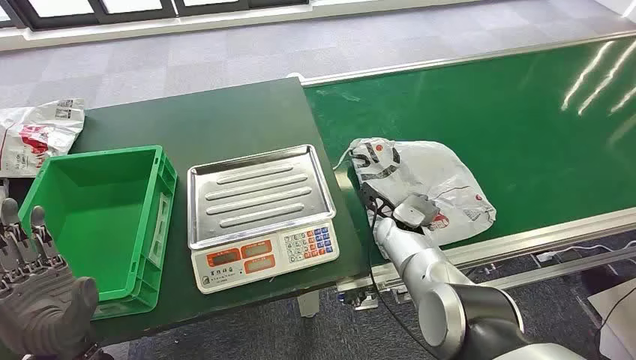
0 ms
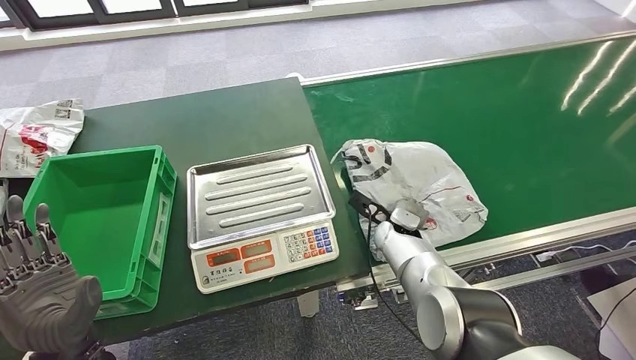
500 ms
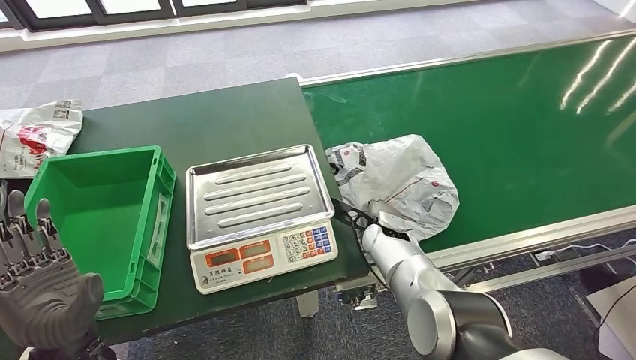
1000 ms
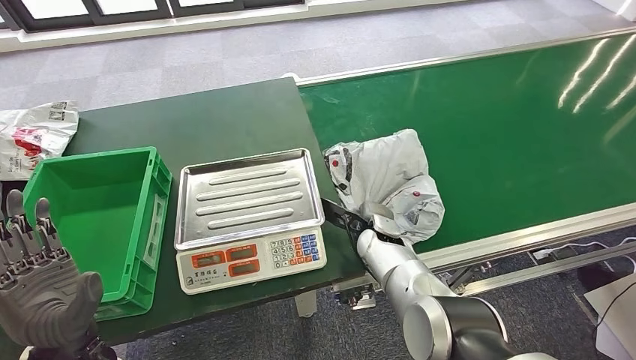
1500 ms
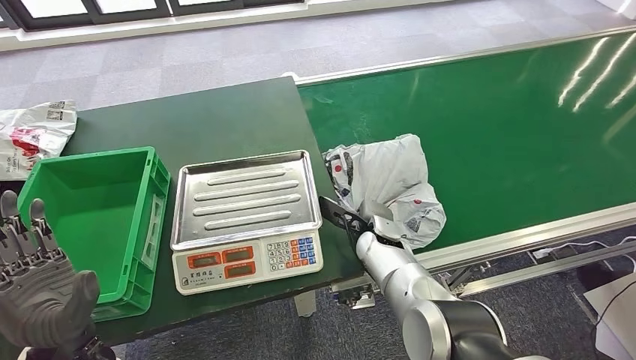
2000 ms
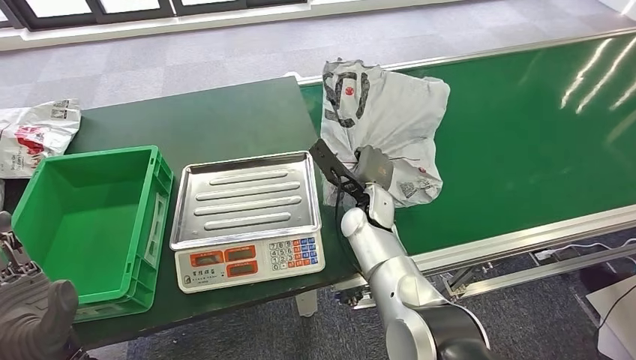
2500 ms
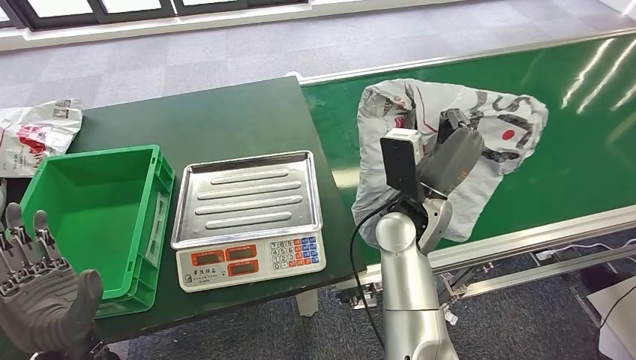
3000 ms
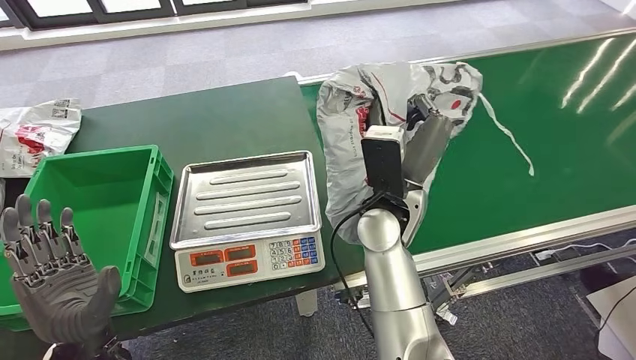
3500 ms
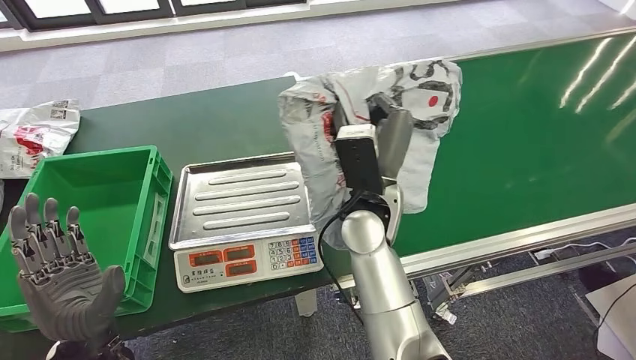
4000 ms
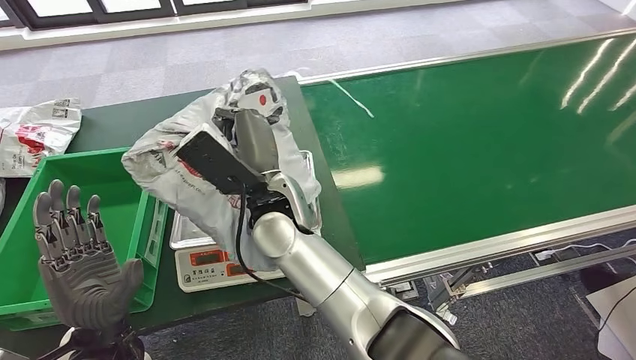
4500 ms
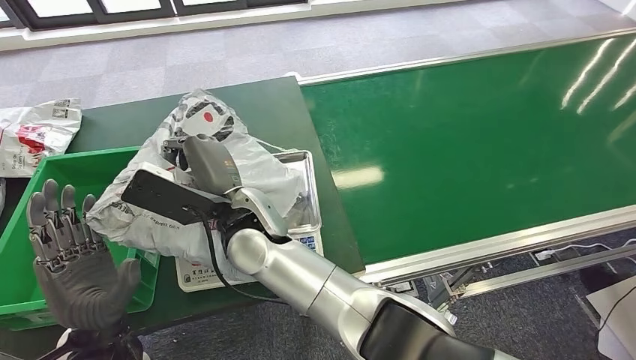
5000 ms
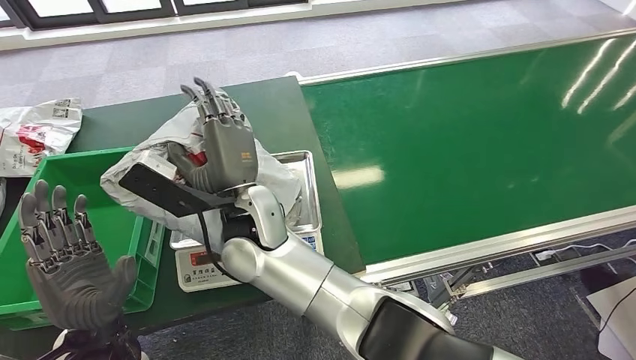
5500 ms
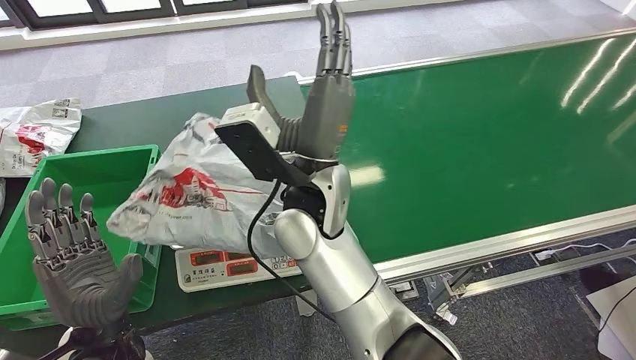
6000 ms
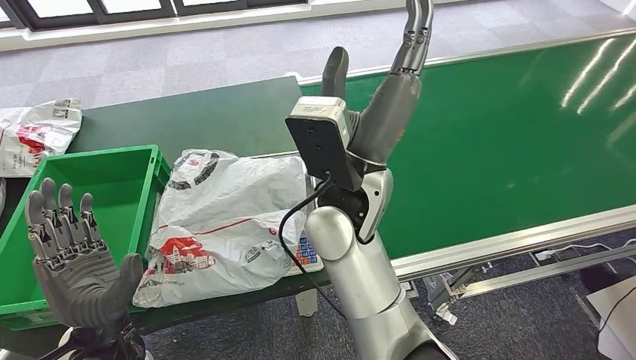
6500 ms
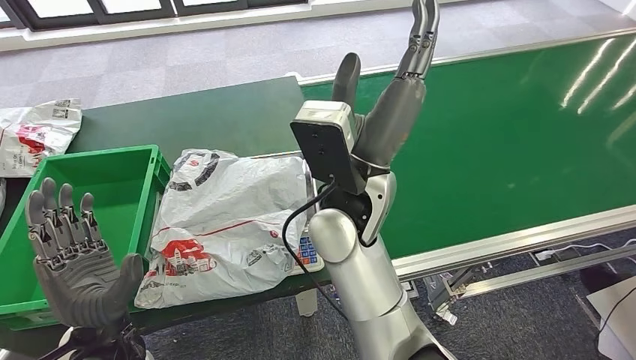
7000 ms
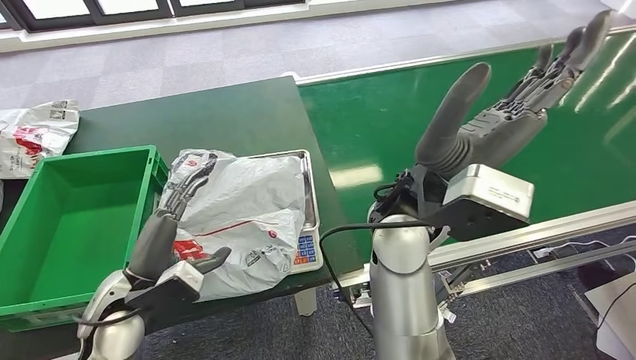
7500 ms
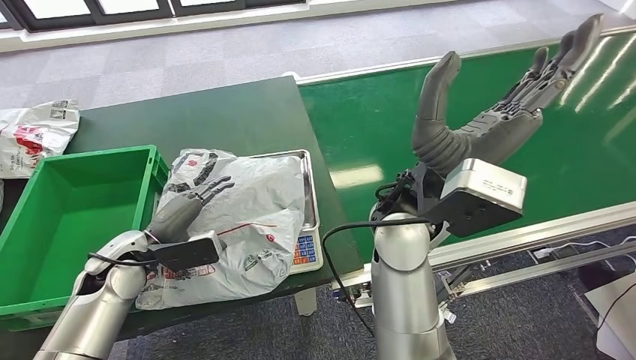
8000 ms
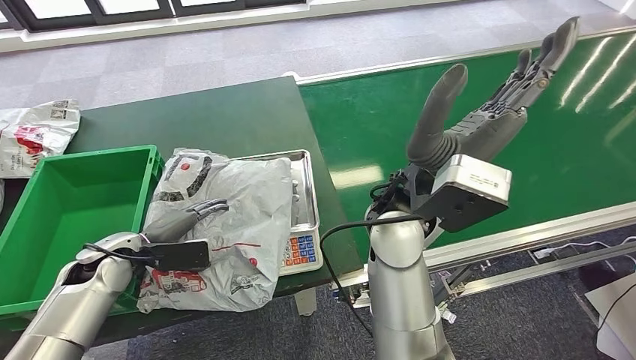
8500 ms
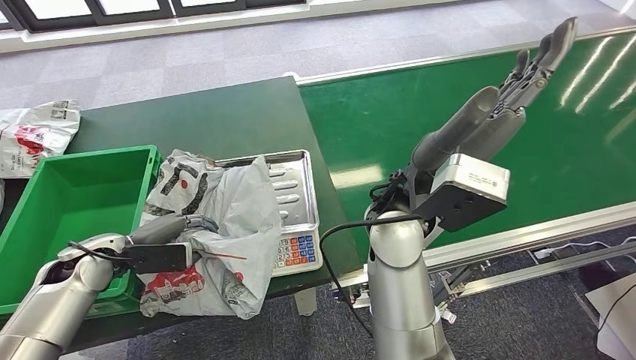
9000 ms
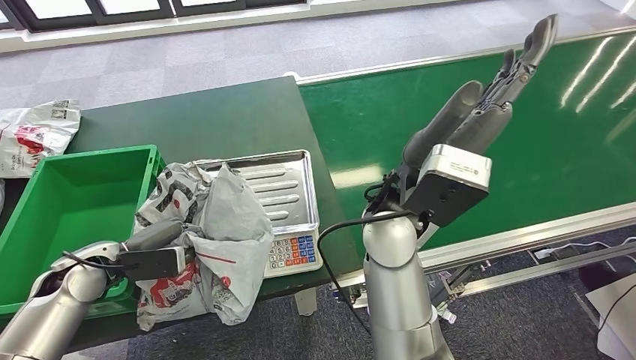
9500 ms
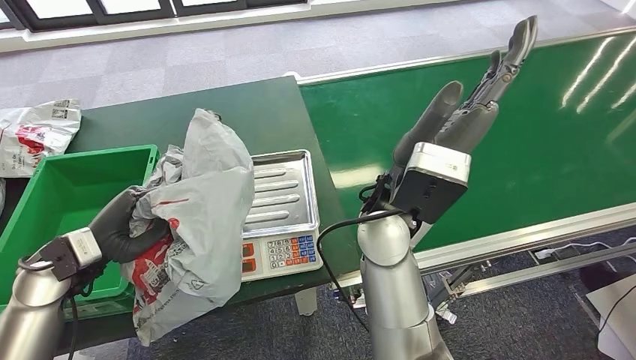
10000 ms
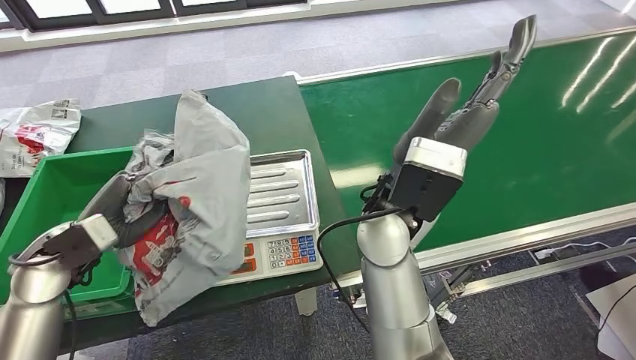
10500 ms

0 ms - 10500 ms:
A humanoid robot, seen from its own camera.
Step, 0 ms - 2500 ms: Pick up the package from the conveyor belt.
Step, 3500 ms - 6000 ms: Place the package onto the inbound machine.
Step, 8000 ms - 10500 ms: Pick up the package from the inbound machine.

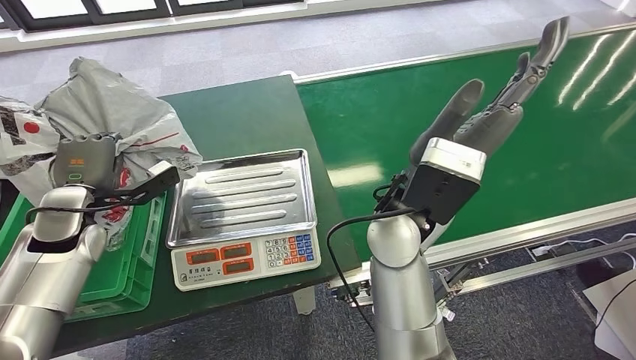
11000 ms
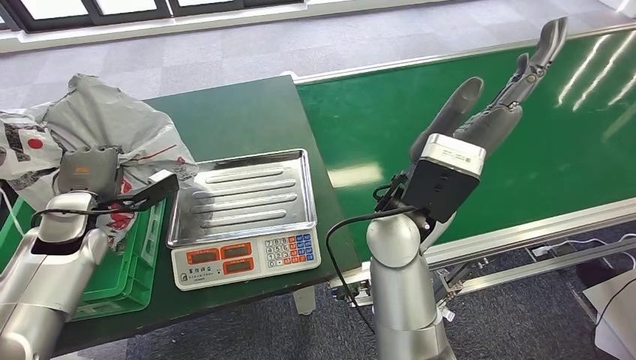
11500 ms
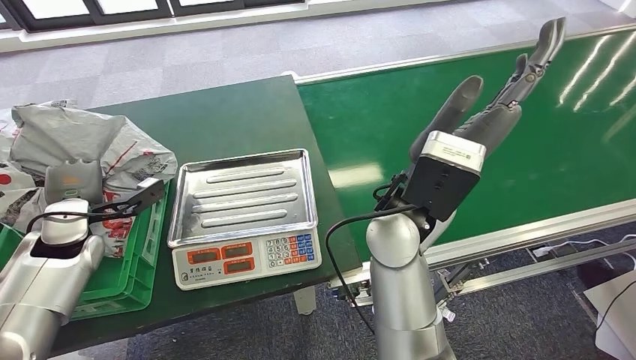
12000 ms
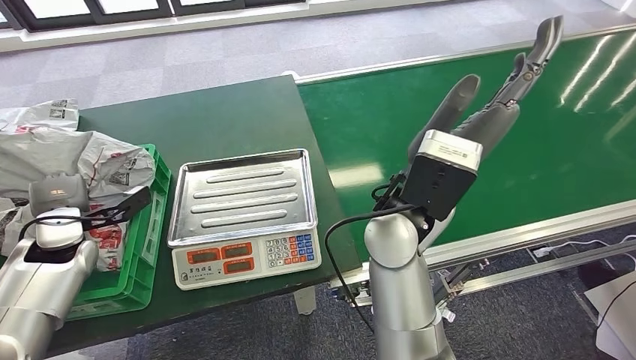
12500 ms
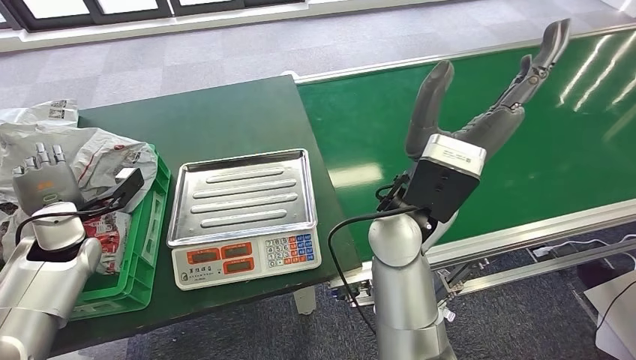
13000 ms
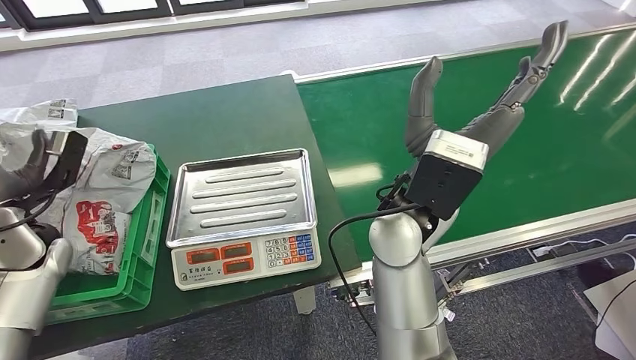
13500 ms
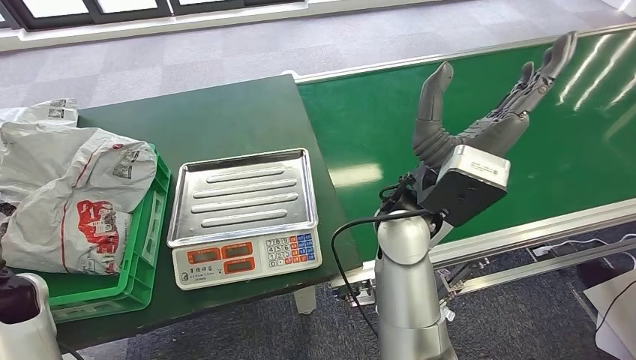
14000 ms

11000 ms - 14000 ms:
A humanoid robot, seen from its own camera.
Step, 11000 ms - 14000 ms: Place the package into the parcel locker.
11000 ms - 12500 ms: The left hand ends up some 5 cm from where it was.
12500 ms - 14000 ms: The left hand is displaced upward and backward by some 15 cm.
